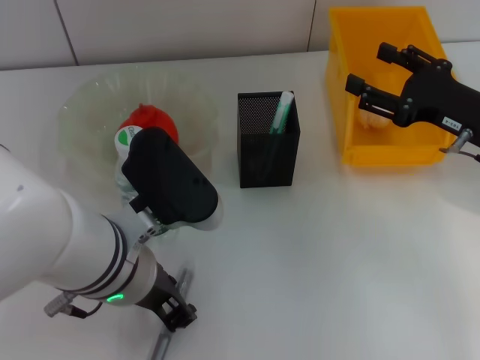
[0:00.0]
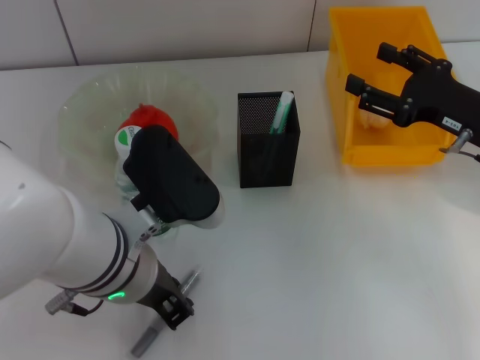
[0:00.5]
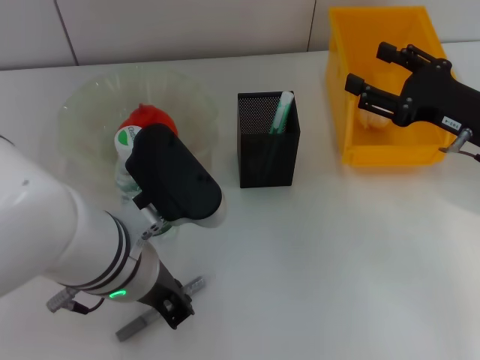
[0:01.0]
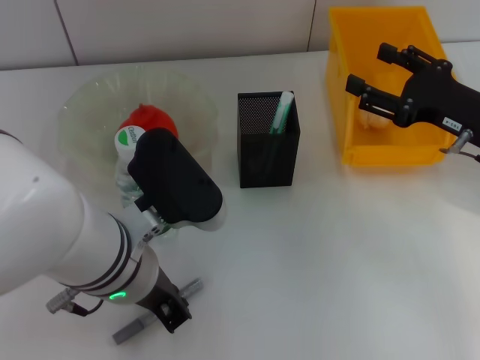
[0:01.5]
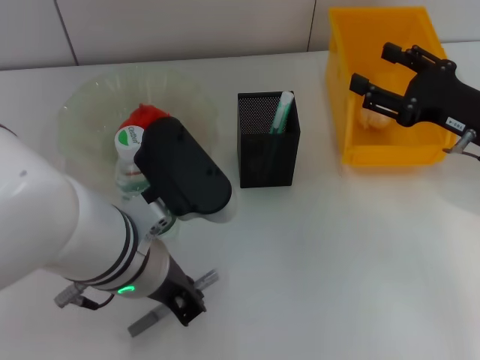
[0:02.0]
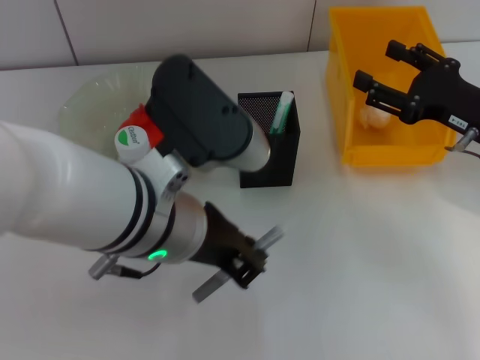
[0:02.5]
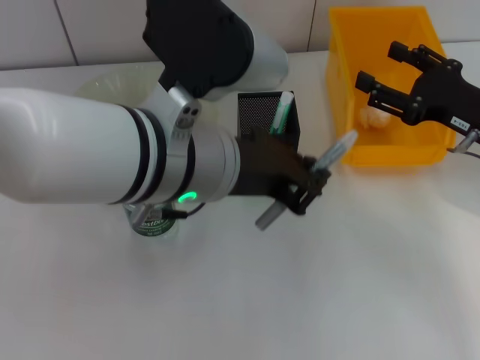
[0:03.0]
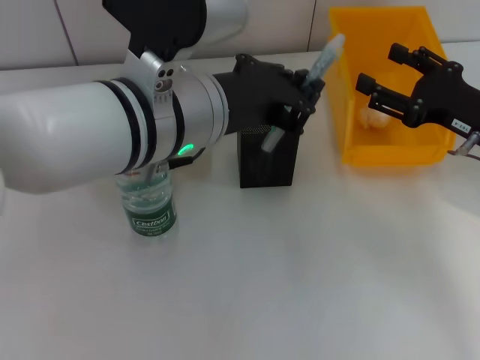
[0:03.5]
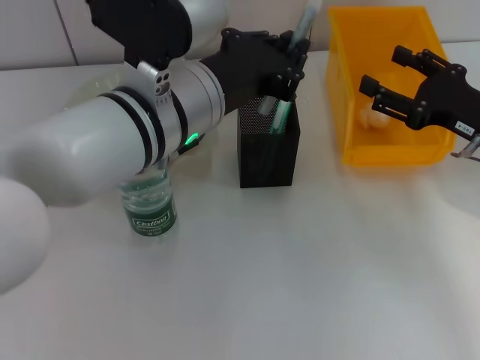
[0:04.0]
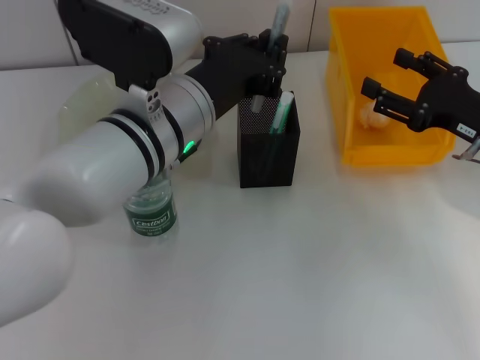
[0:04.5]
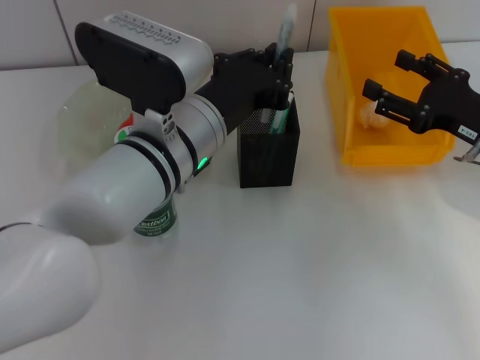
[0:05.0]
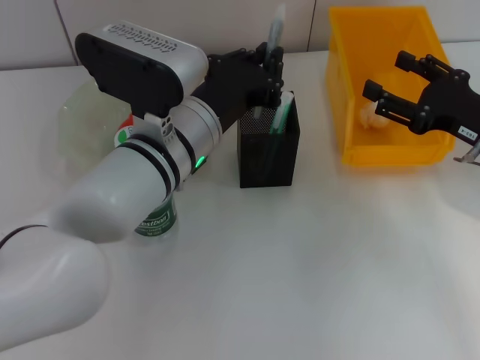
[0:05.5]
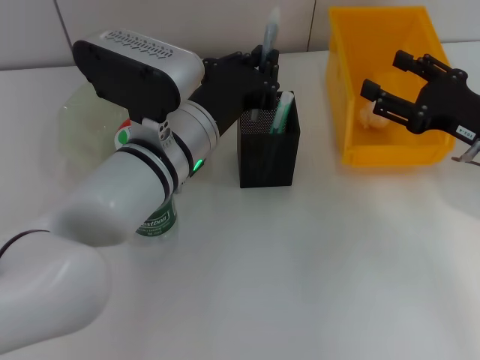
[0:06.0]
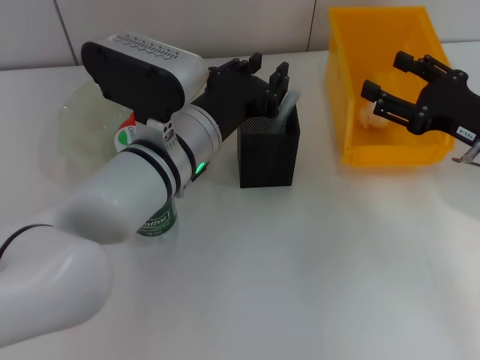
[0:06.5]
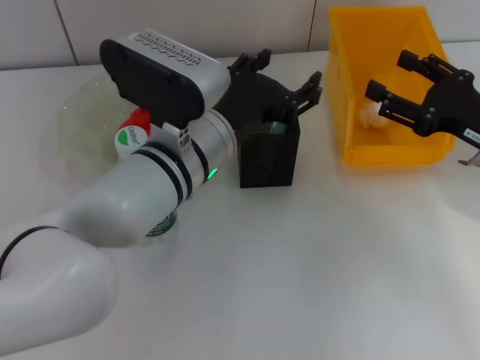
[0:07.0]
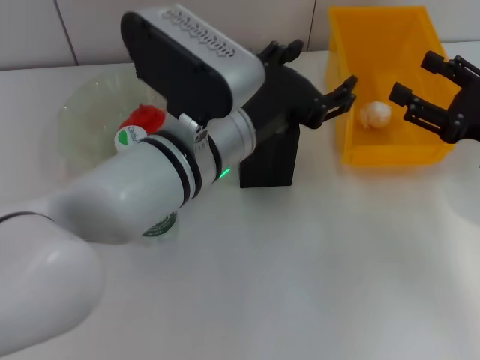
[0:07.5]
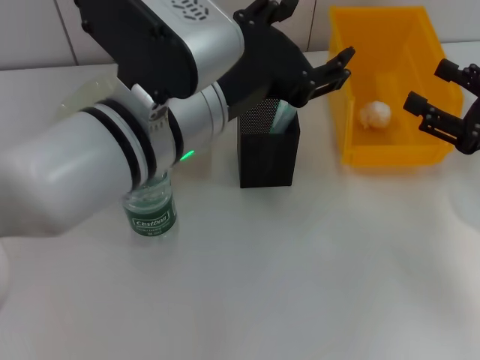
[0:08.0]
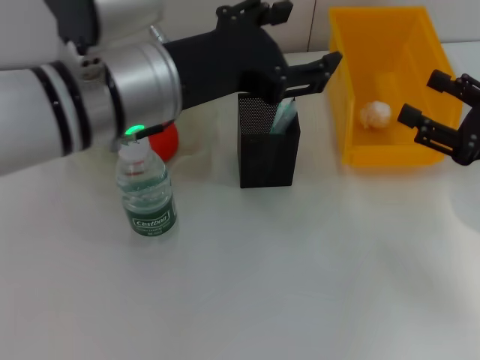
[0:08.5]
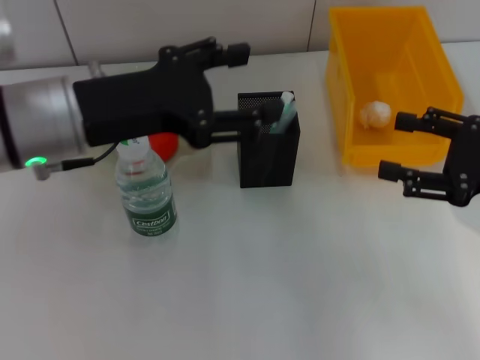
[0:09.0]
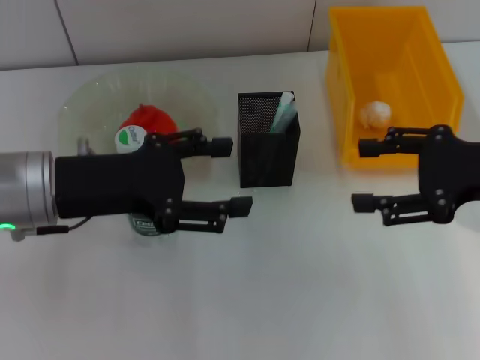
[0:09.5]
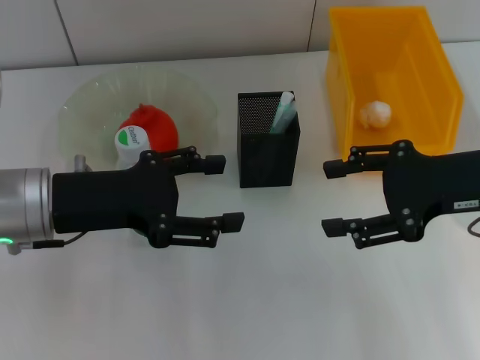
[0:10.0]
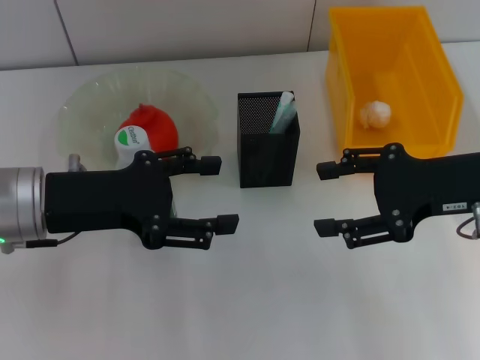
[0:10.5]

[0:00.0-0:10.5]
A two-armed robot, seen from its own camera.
Step, 0:01.0 to 0:06.5: Place the gray glue into the pen holder with the left hand.
0:00.0 to 0:02.0: The left gripper closes.
0:02.0 to 0:04.0: The left gripper travels forward by roughly 5 cm.
0:04.0 to 0:06.5: The left gripper is displaced downward by about 10 cm.
0:06.5 to 0:08.5: The left gripper shifts approximately 10 cm upward, and opens its fingers; the right gripper shifts by some 5 cm.
0:08.5 to 0:10.5: The left gripper is displaced to the left and downward by some 15 cm; the right gripper heads to the left and upward, covering some 10 cm.

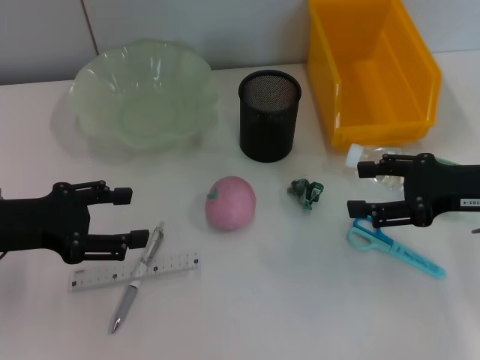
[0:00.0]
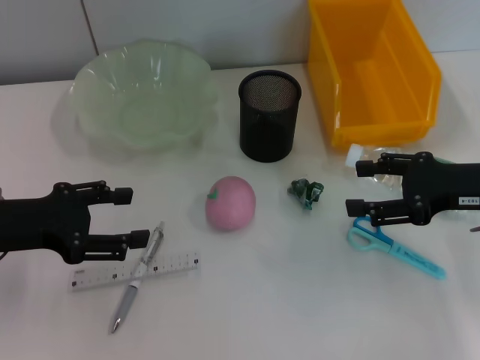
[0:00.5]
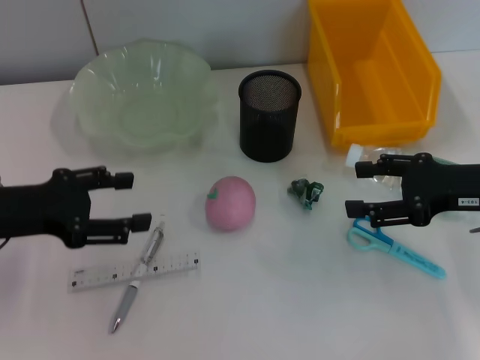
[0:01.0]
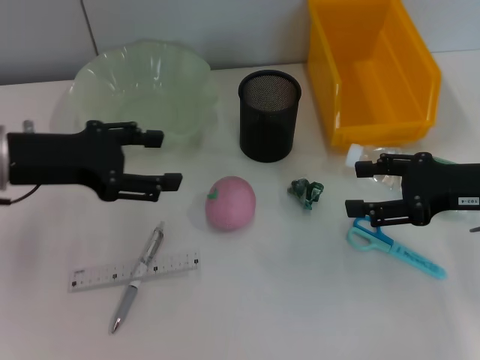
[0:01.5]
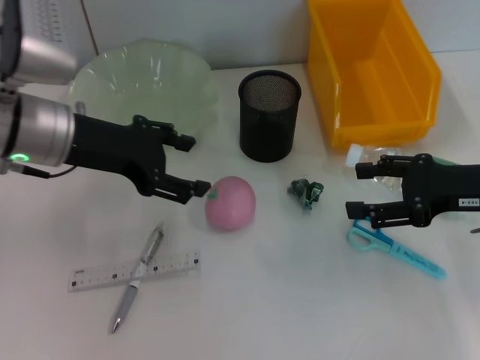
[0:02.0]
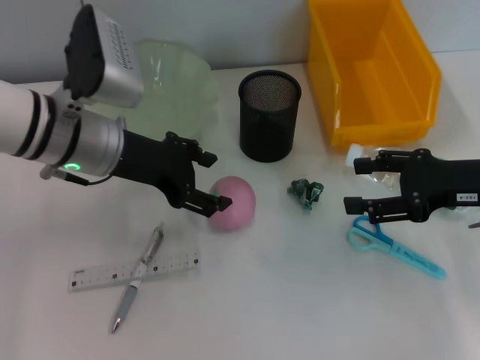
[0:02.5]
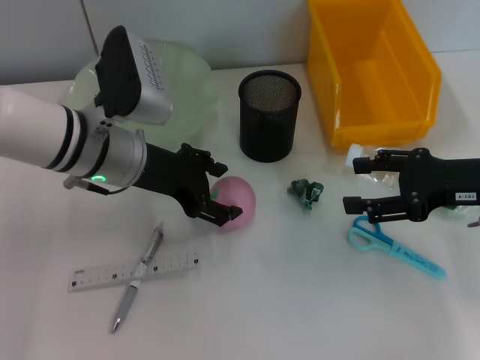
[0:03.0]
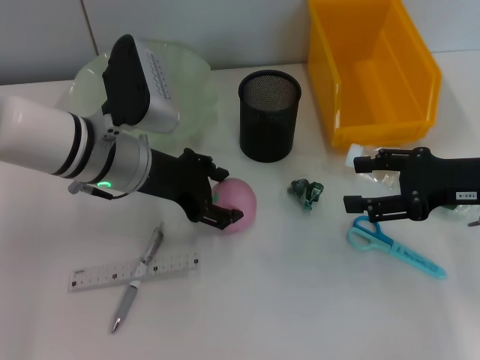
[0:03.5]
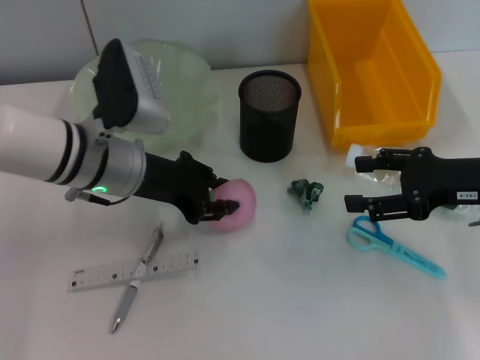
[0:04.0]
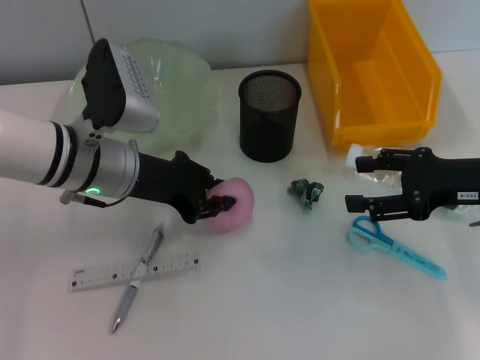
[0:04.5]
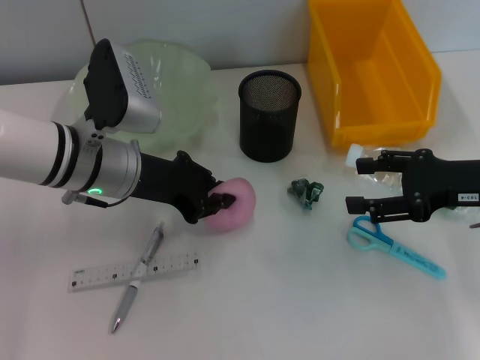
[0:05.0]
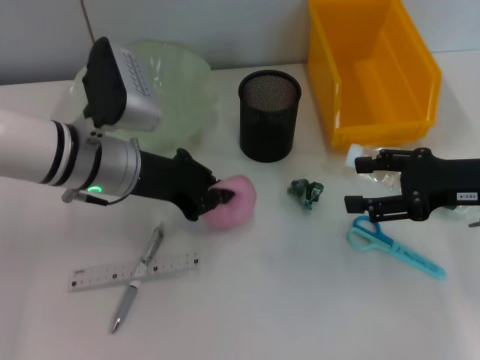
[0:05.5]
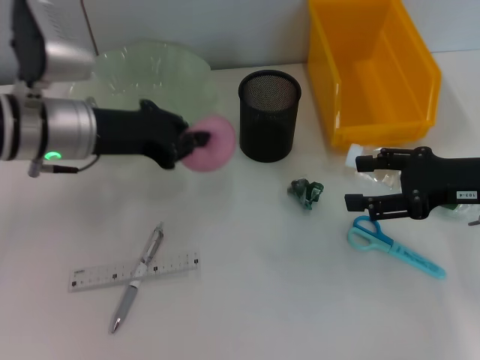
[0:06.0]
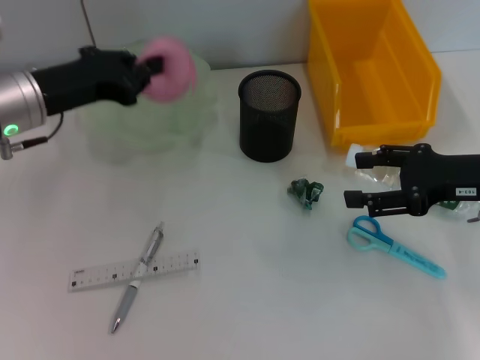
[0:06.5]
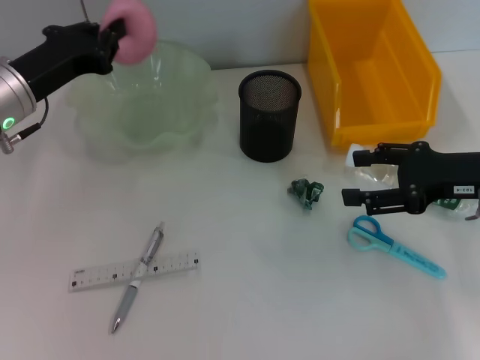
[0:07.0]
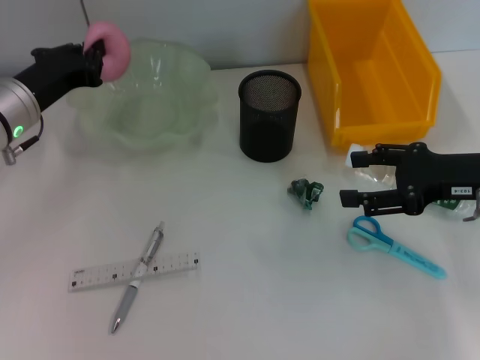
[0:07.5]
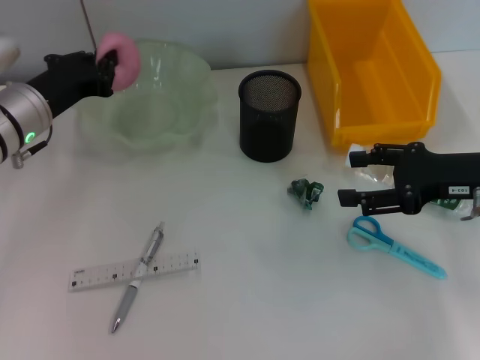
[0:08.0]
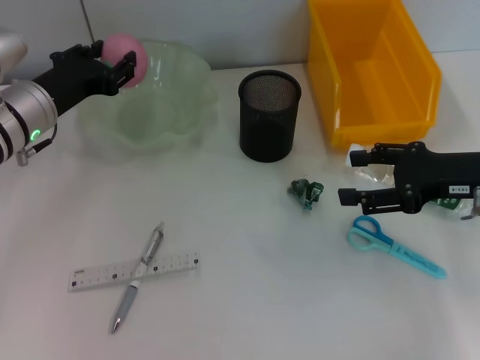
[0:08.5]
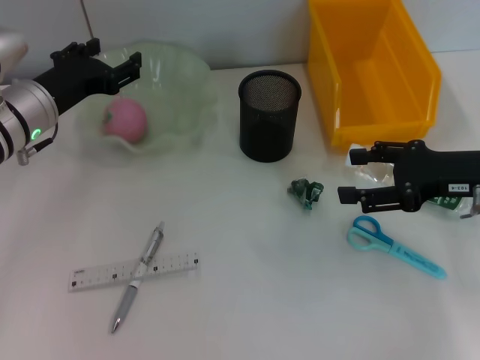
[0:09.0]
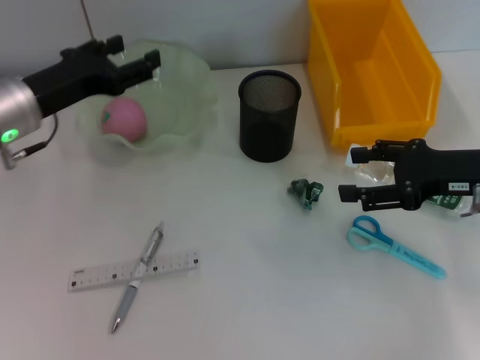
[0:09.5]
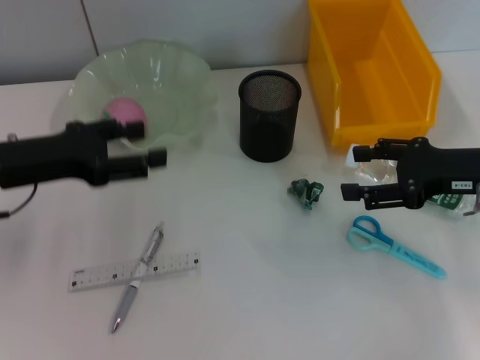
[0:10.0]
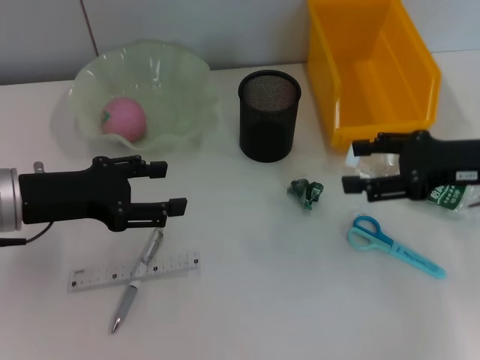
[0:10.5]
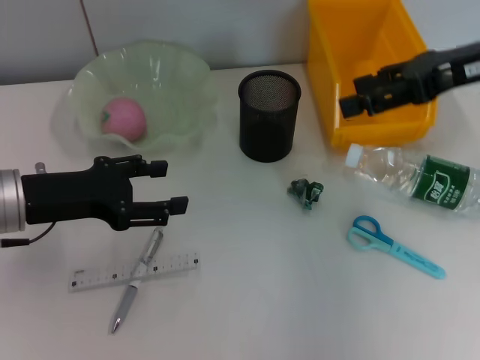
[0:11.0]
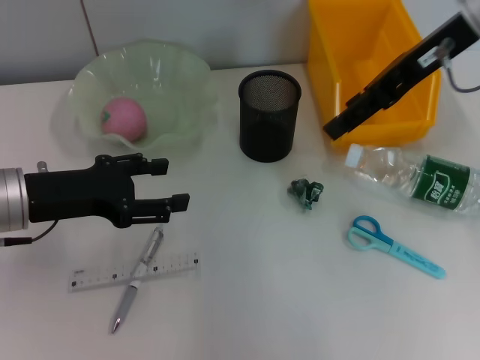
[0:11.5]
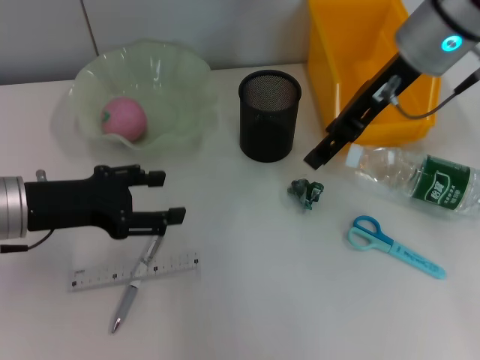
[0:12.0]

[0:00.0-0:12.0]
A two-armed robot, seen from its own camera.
Step, 0:00.0 to 0:05.0: Grab the peach with the left hand.
Step, 0:05.5 to 0:09.0: Place the peach into the fruit bowl with the left hand.
0:00.0 to 0:02.0: The left gripper is displaced to the right, forward and upward by approximately 10 cm.
0:02.0 to 0:04.0: The left gripper is displaced downward and to the right by roughly 10 cm.
0:04.0 to 0:06.0: The left gripper moves some 5 cm, and closes up.
0:06.0 to 0:08.0: The left gripper moves about 5 cm.
0:08.0 to 0:10.0: The left gripper is displaced backward by about 5 cm, and opens up.
0:10.0 to 0:12.0: The right gripper shifts approximately 20 cm to the left, upward and forward.

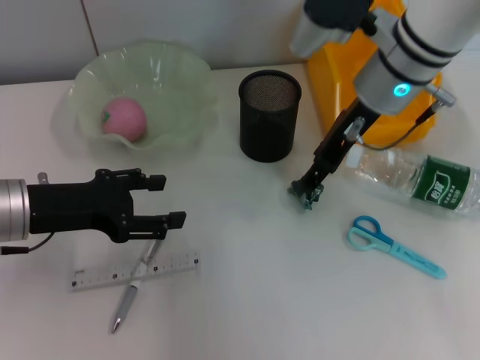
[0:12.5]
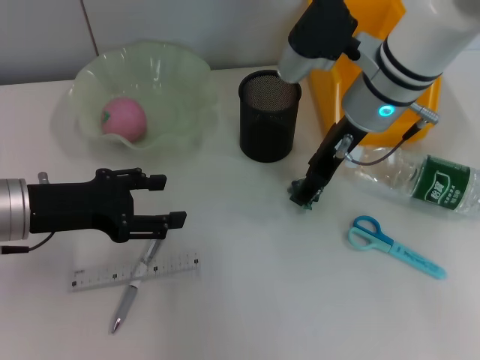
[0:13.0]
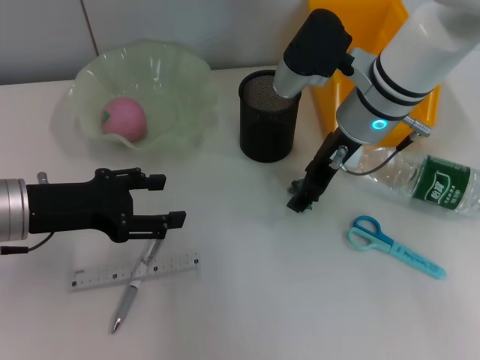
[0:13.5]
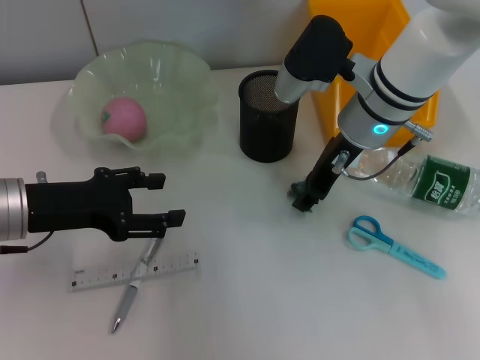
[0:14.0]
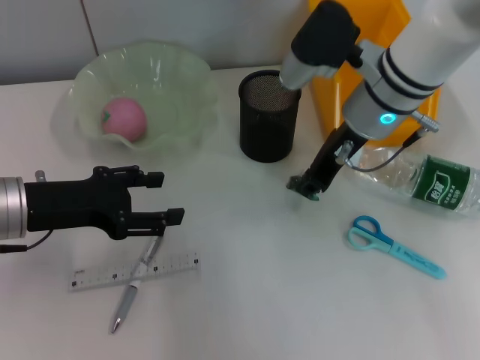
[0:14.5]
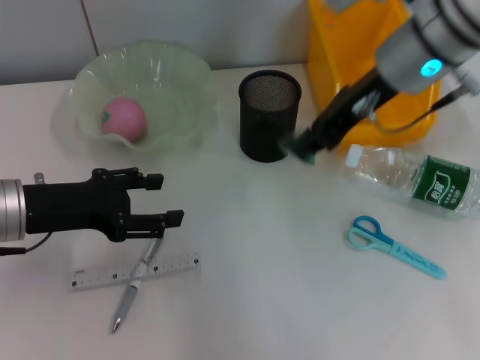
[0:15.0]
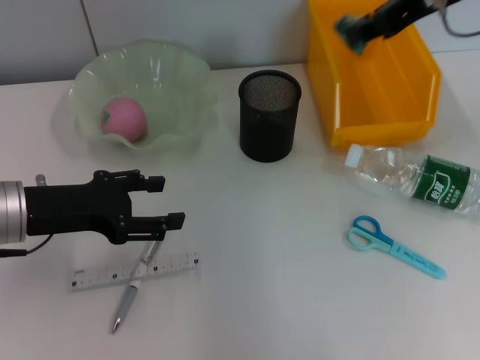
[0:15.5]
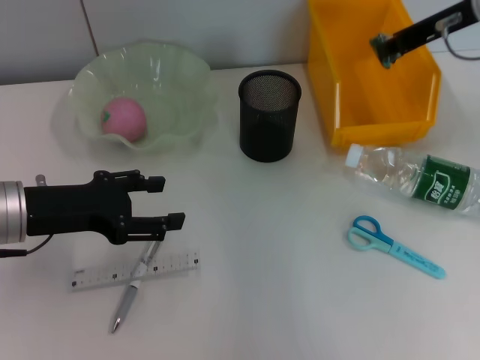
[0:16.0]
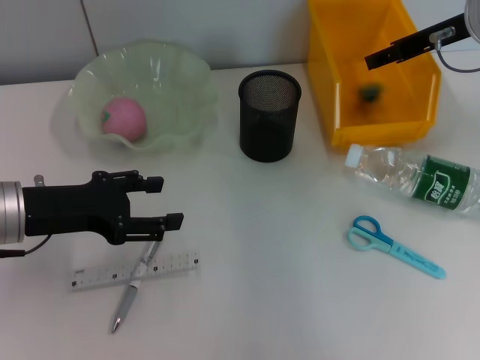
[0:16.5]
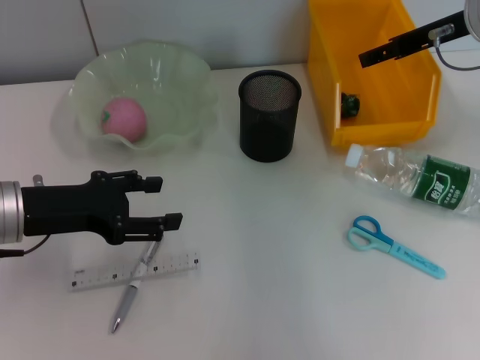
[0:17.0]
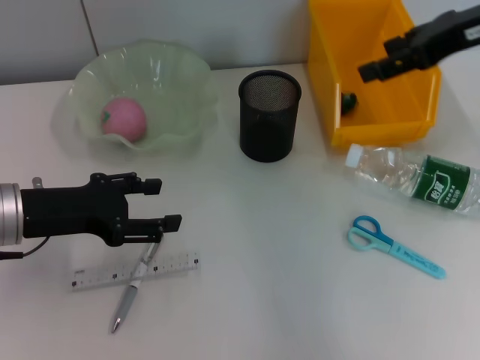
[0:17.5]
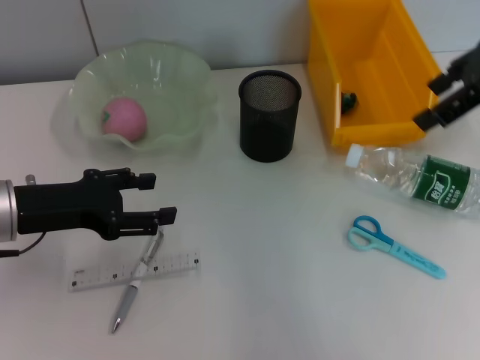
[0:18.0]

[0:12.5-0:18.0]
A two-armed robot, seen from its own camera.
Step, 0:14.5 to 0:16.5: Place the plastic into the trash can with the right hand.
0:12.5 to 0:14.5: The right gripper closes.
0:14.5 to 0:16.0: The right gripper heads to the right and upward, covering some 15 cm.
0:16.0 to 0:18.0: The right gripper travels backward and upward by approximately 10 cm, and opens.
